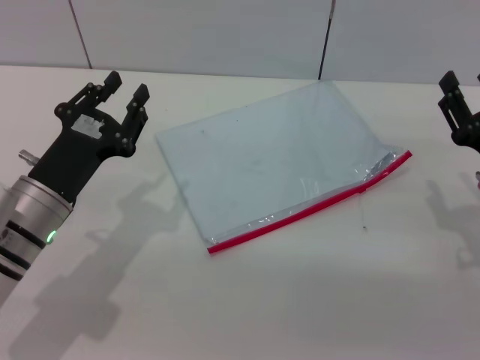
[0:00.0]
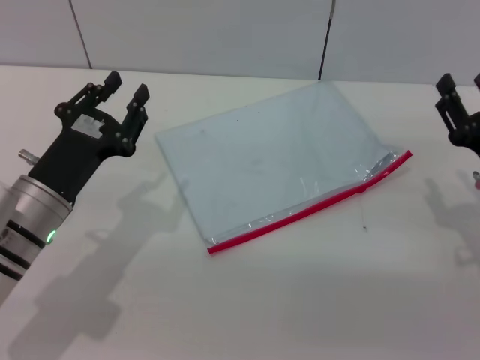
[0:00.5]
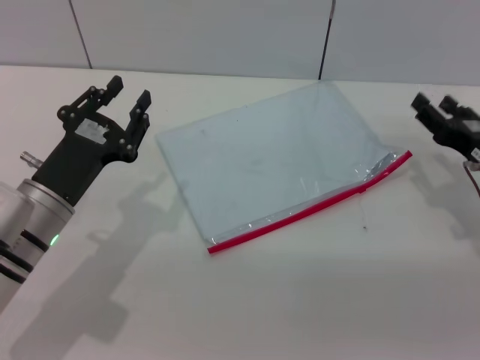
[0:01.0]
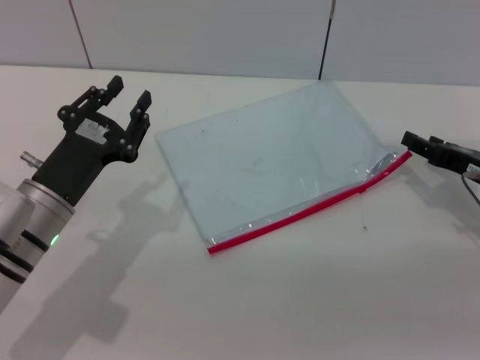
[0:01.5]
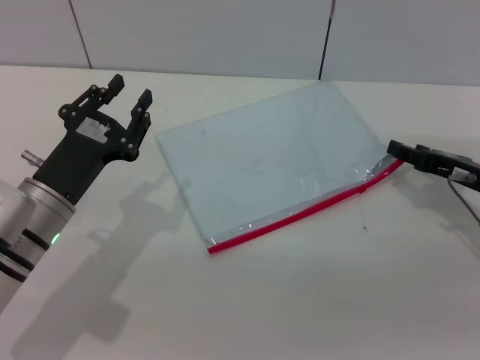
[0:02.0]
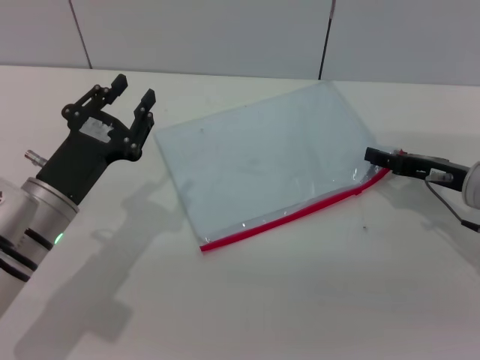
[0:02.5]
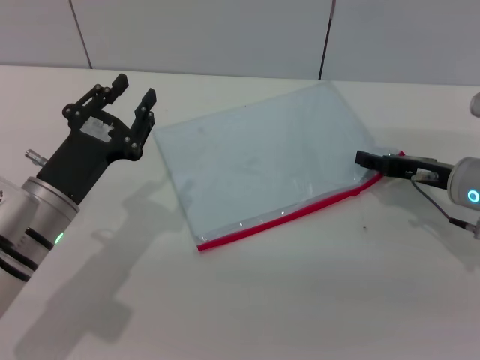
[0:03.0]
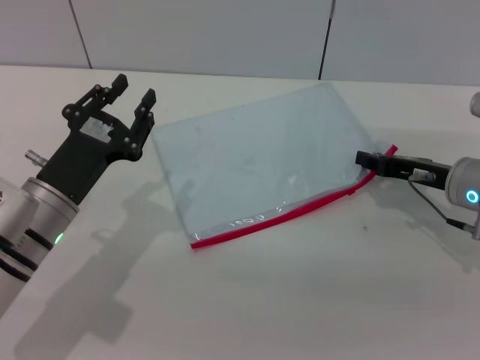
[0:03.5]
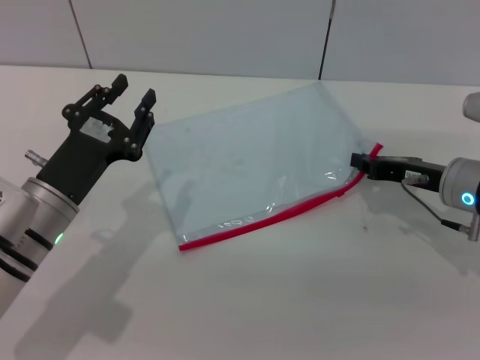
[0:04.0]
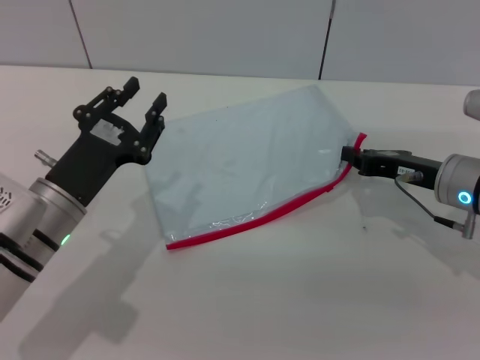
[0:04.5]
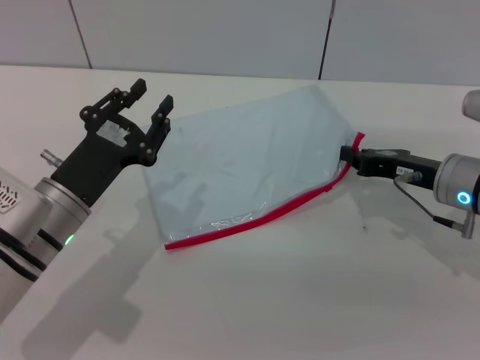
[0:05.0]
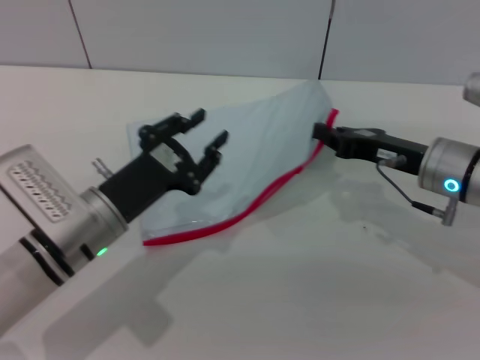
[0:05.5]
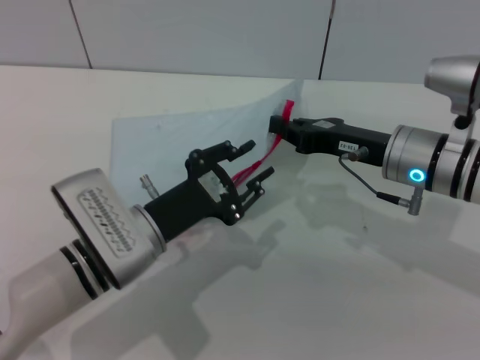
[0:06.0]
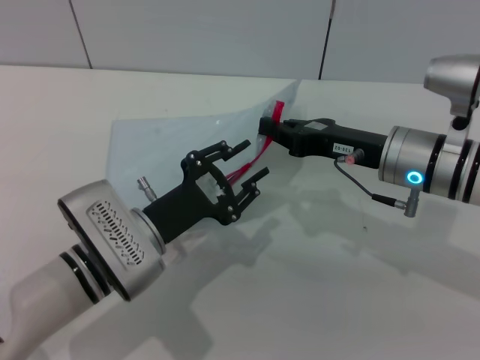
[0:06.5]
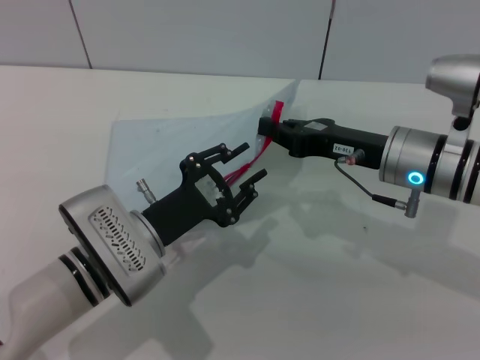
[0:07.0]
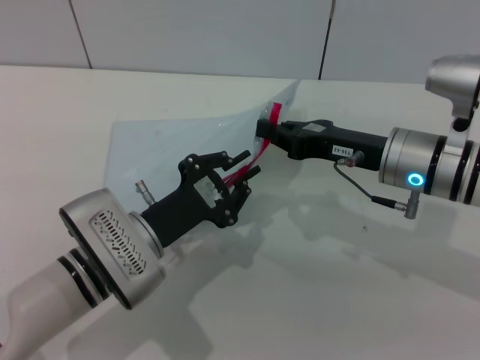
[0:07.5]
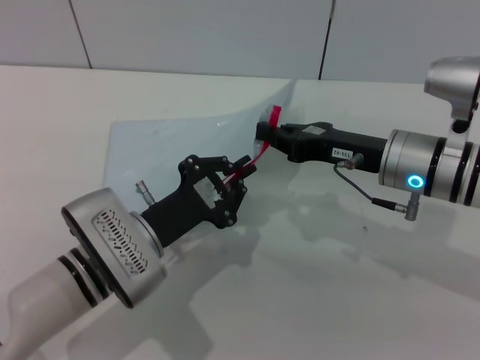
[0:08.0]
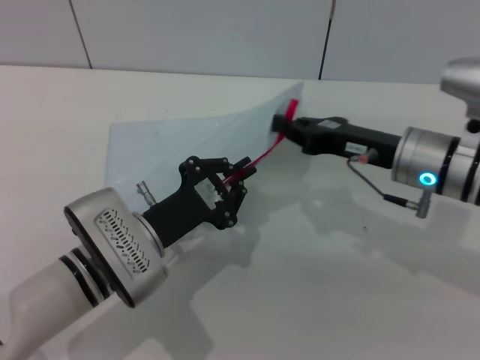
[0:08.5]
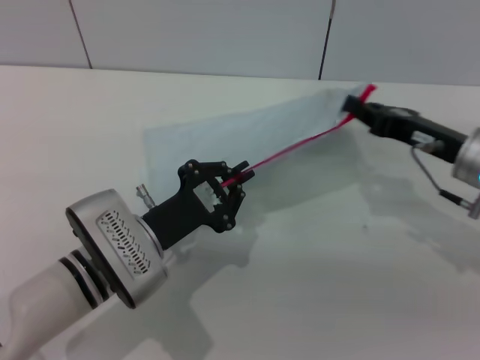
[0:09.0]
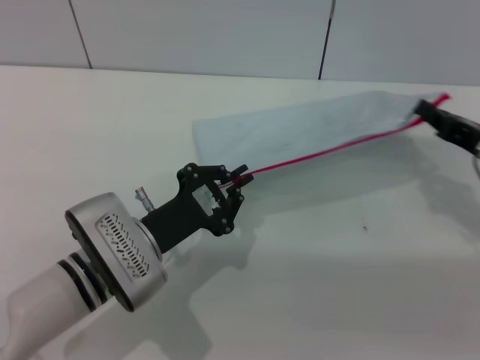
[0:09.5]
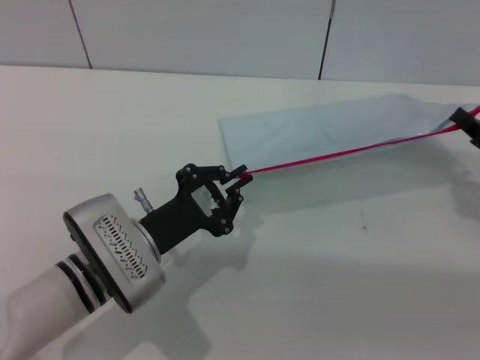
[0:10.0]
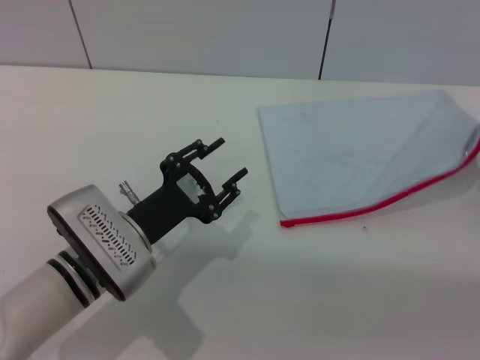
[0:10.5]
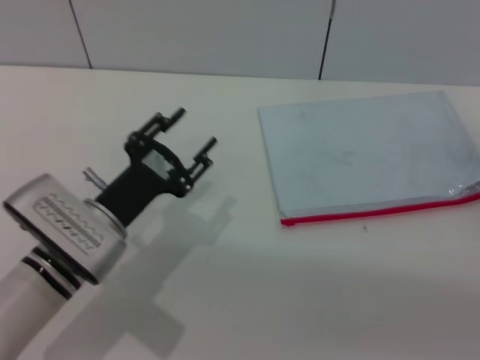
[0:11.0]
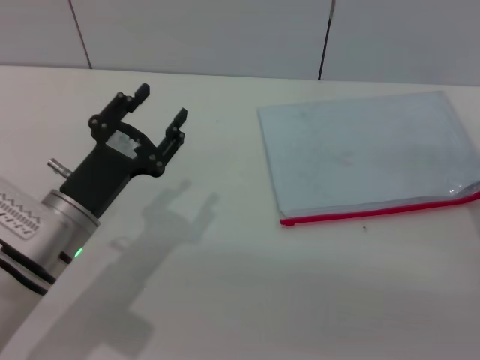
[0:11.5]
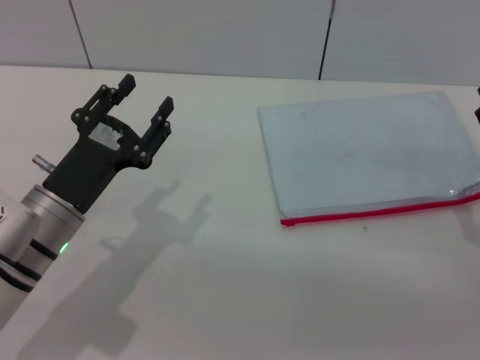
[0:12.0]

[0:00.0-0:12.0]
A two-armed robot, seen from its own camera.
Step, 0:00.0 to 0:05.5: Pick up the transparent plastic bag with the right gripper.
Step, 0:06.0 to 0:10.0: Pulling up the zipper on the transparent plastic bag with the right gripper to close it.
0:00.0 to 0:02.0: The right gripper shifts approximately 5 cm forward.
0:02.0 to 0:04.0: The right gripper closes its fingers.
0:04.0 to 0:06.0: The left gripper moves to the right, roughly 5 cm, while the right gripper travels to the left by some 5 cm.
0:06.0 to 0:08.0: The left gripper closes.
0:08.0 to 0:10.0: The right gripper travels to the right by some 15 cm.
0:10.0 to 0:12.0: The left gripper goes roughly 5 cm to the left, and opens its fingers; the right gripper moves backward, roughly 5 cm, and opens its fingers.
